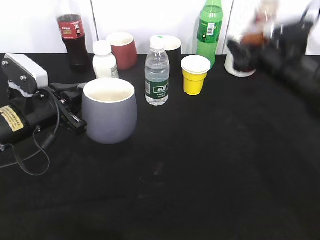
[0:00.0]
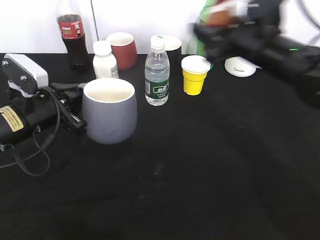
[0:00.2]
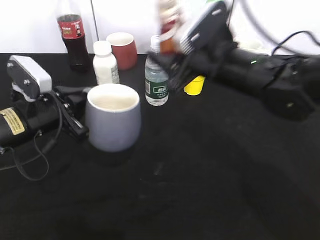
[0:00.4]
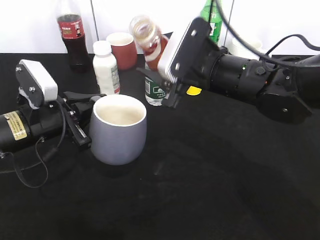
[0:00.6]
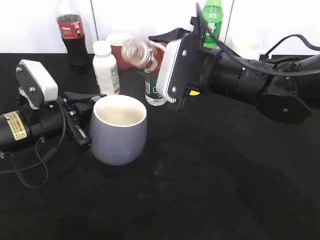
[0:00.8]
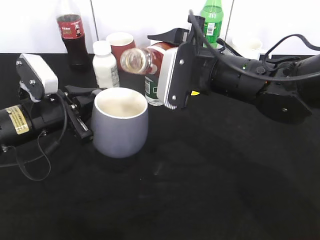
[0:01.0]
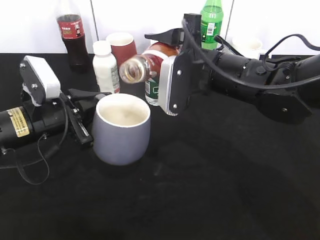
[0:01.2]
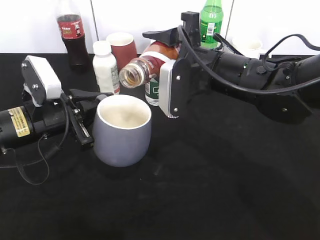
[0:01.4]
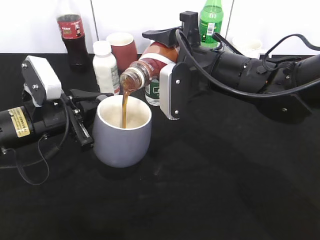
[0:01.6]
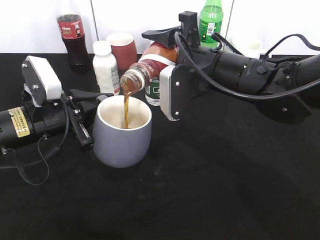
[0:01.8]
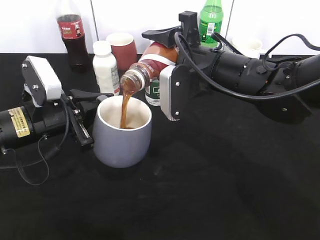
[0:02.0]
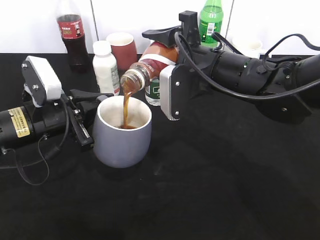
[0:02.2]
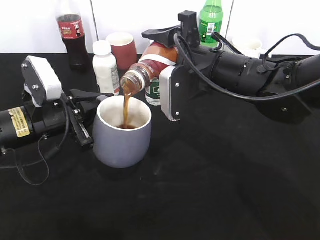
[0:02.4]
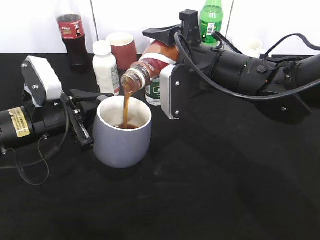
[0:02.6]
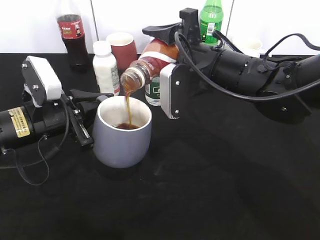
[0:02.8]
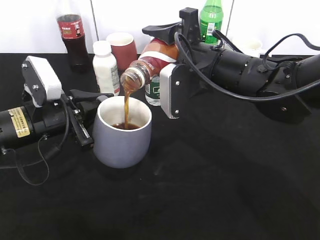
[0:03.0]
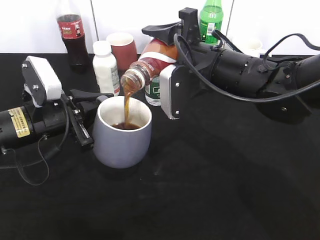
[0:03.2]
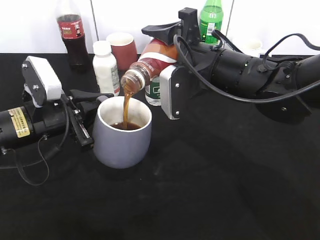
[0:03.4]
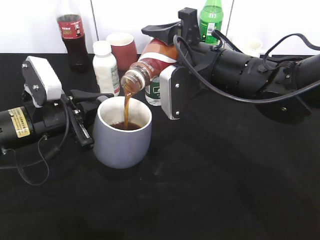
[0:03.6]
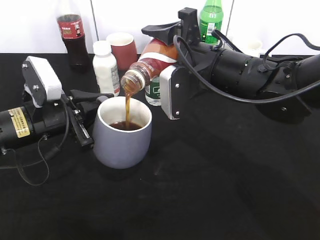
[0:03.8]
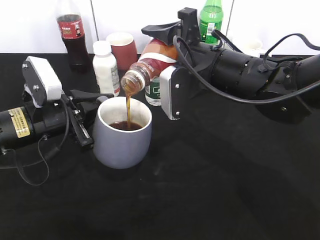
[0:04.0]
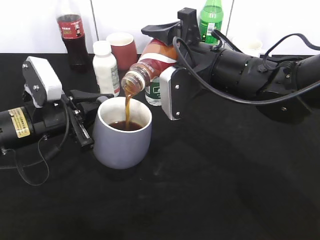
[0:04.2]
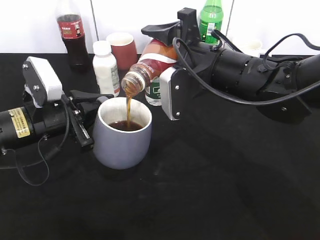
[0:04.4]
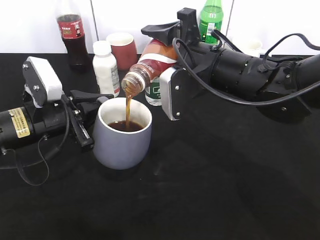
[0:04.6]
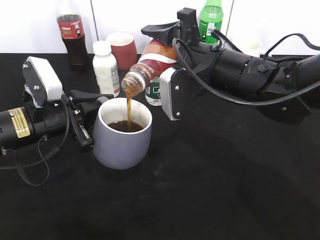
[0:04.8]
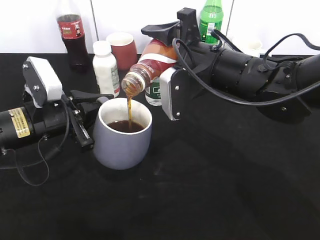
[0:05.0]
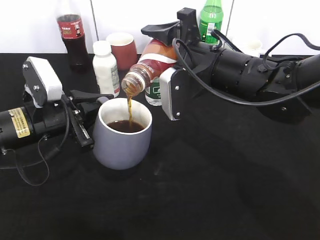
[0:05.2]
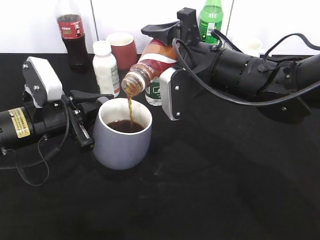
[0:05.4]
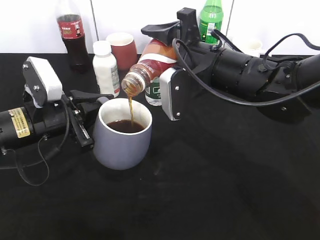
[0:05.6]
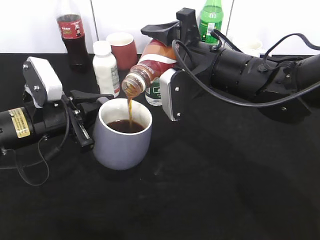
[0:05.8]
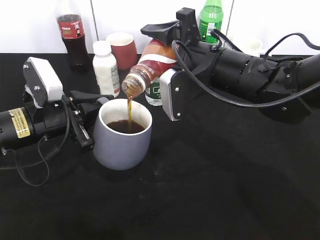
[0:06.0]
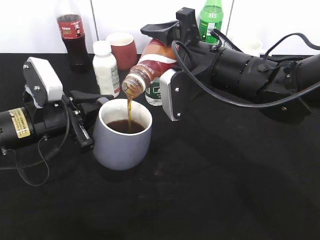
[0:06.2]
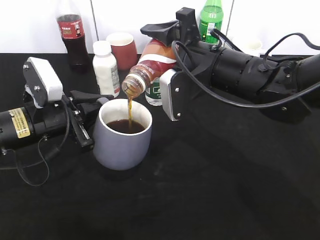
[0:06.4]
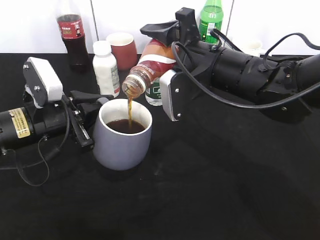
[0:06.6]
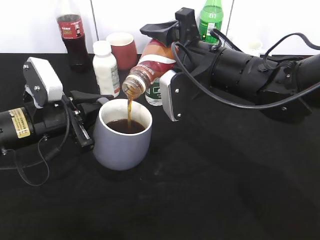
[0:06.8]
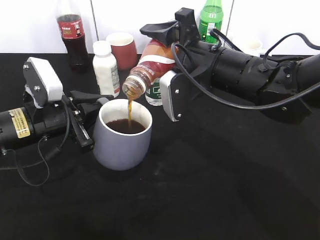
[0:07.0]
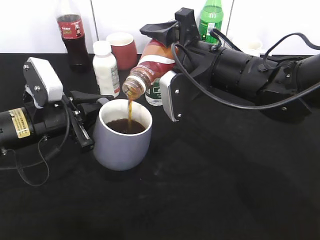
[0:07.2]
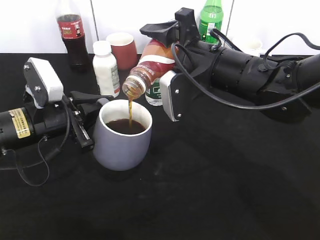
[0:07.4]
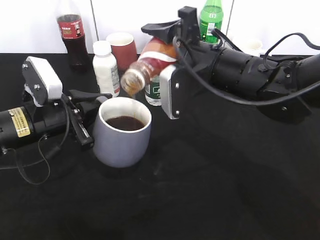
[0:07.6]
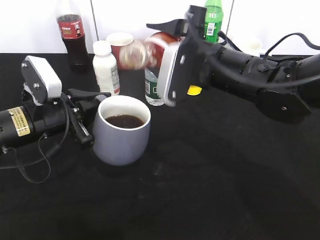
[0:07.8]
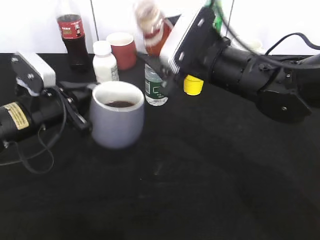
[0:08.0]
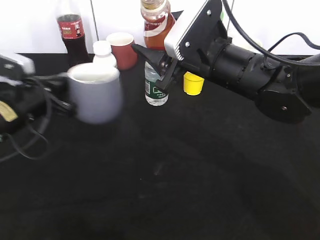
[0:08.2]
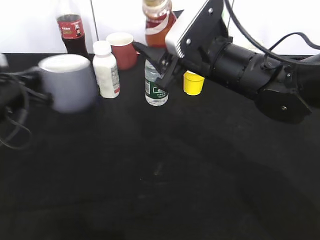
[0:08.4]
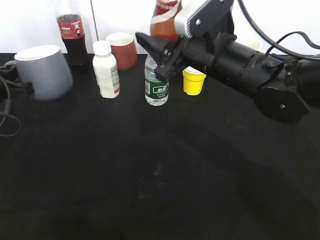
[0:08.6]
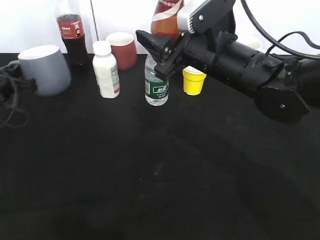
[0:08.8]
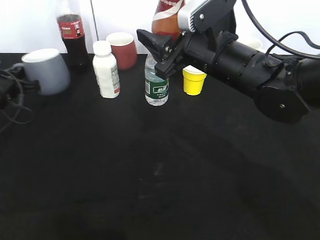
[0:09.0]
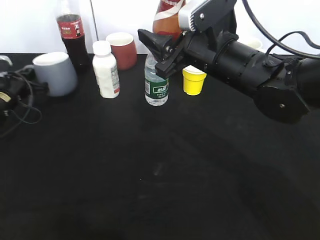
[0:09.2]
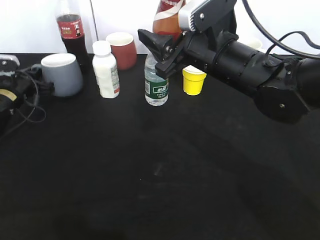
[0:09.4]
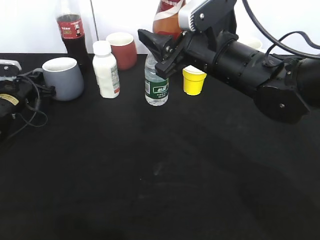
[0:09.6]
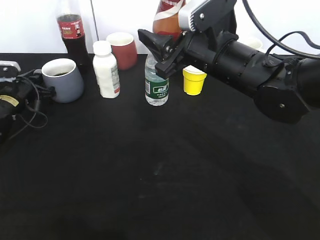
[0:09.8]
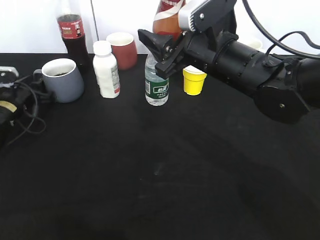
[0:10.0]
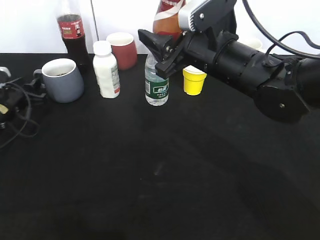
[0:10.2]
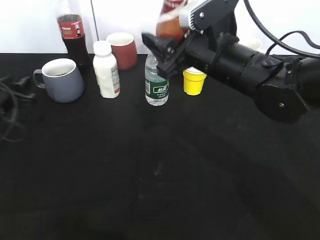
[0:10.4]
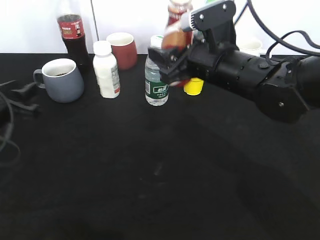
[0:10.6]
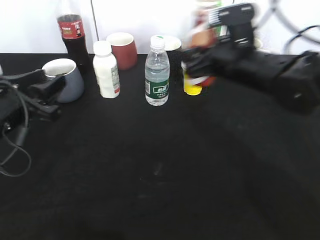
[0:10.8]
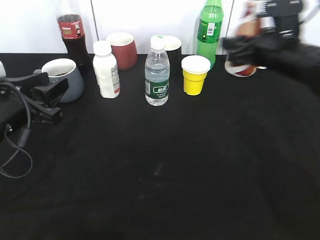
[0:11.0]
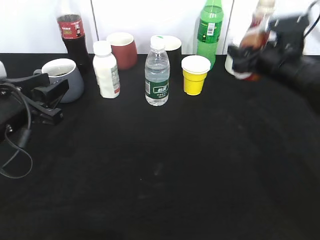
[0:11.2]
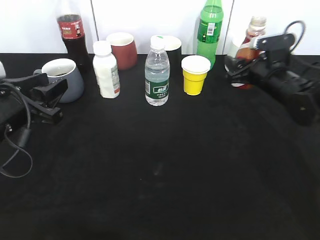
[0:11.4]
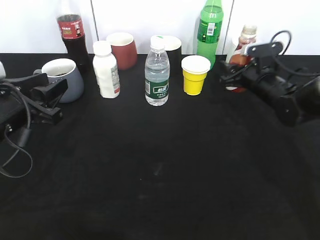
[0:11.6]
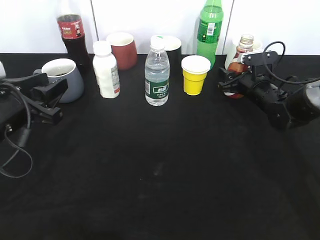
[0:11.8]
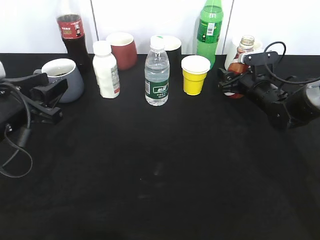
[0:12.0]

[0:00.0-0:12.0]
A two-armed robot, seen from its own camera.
Step, 0:00.0 to 0:08.0: Pour the coffee from bottle to cup with right gripper.
Step, 0:08.2 to 0:09.8: Place the grey cup on the table with left gripper.
0:00.0 to 0:01.6: The right gripper goes some 15 cm to the left and backward.
0:01.6 to 0:03.0: Both grippers stay put.
0:03.0 to 0:04.4: Both grippers stay about where they are.
0:04.4 to 0:06.0: Both grippers stay put.
0:06.0 to 0:07.6: There are only small adjustments of the grippers.
0:07.6 to 0:09.0: The left gripper goes approximately 20 cm to the left and forward.
0:09.0 to 0:10.4: The left gripper heads backward, covering approximately 5 cm, and opens its fingers.
0:10.4 to 0:12.0: The left gripper goes roughly 15 cm backward, to the right and upward, while the right gripper goes about 25 cm downward, to the right and forward, and opens up.

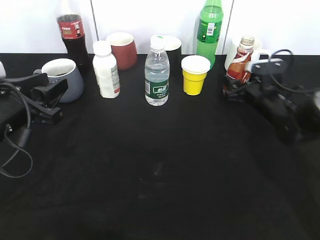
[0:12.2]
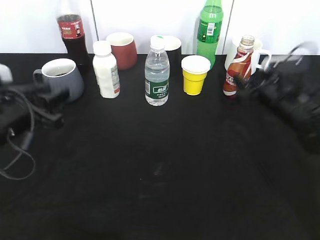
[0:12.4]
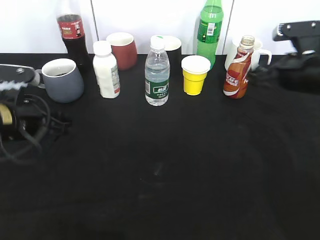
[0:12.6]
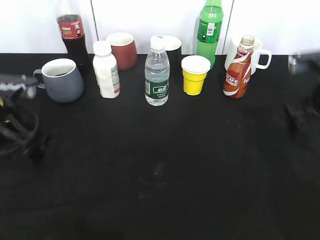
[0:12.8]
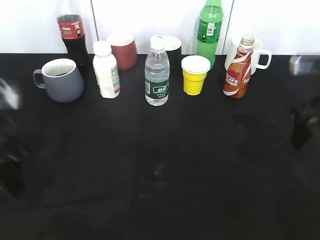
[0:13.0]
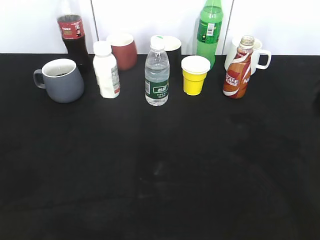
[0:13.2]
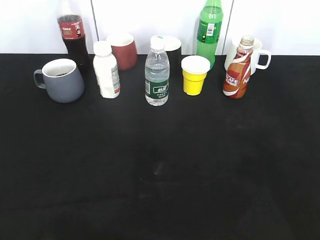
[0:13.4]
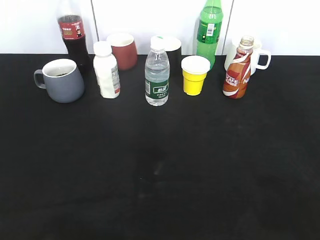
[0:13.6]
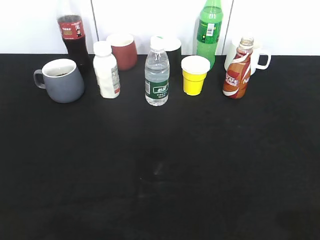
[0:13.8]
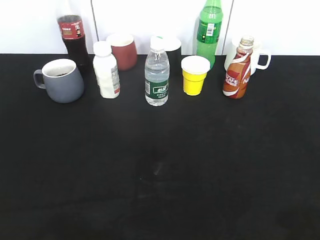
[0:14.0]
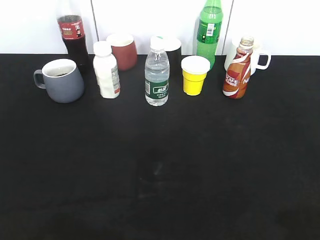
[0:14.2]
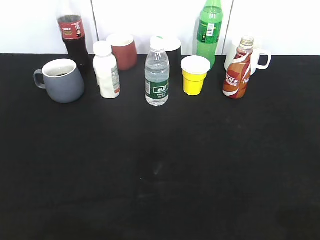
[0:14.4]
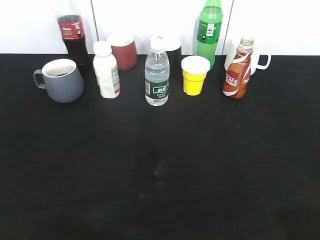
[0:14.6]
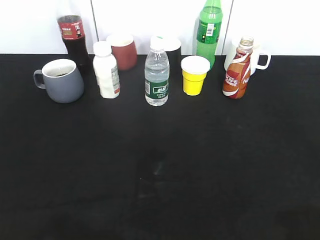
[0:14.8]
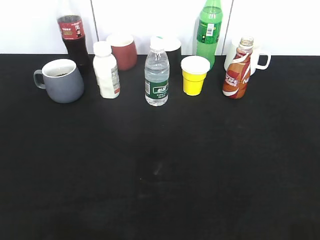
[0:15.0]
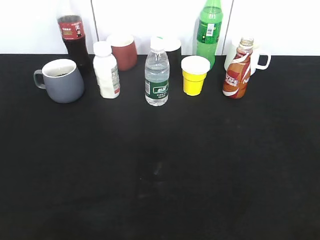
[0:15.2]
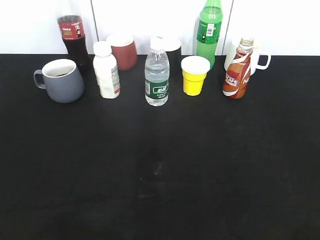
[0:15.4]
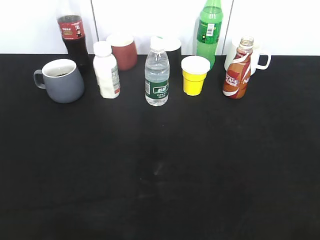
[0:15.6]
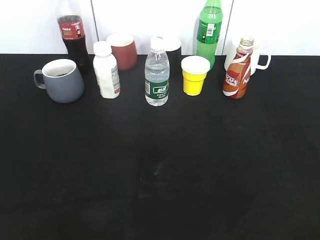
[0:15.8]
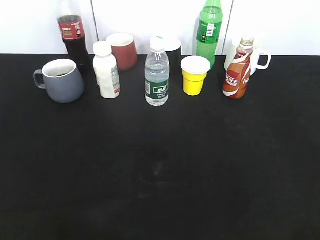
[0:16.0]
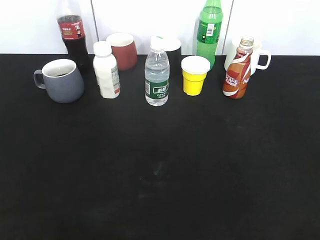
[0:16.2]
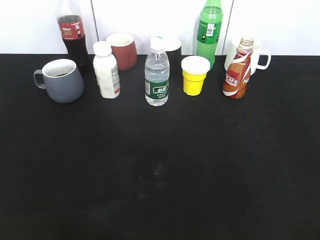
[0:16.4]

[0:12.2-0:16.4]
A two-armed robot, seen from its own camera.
0:12.2 to 0:13.6: The left gripper moves backward and upward, about 30 cm. Meanwhile the right gripper heads backward and upward, covering some 40 cm, and closes its fingers.

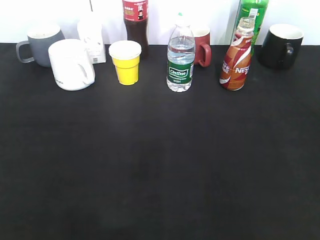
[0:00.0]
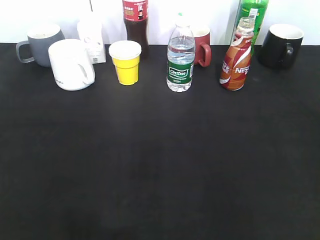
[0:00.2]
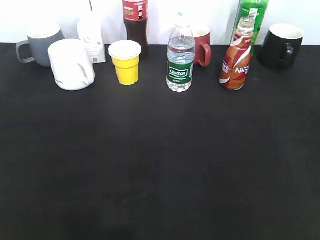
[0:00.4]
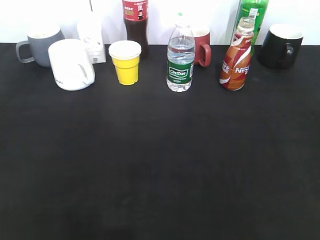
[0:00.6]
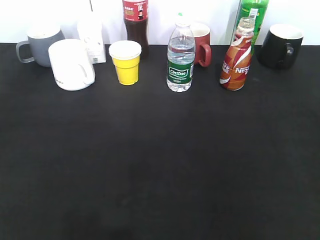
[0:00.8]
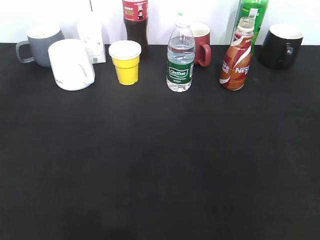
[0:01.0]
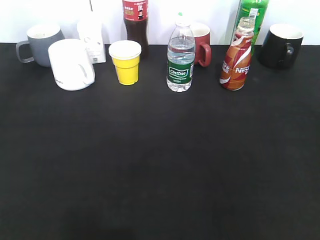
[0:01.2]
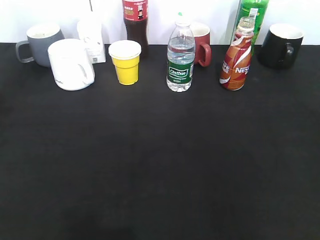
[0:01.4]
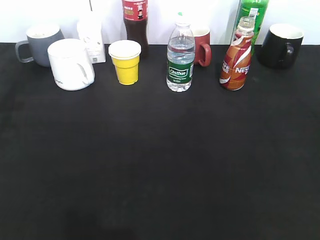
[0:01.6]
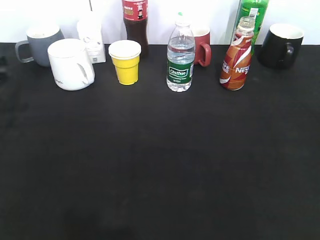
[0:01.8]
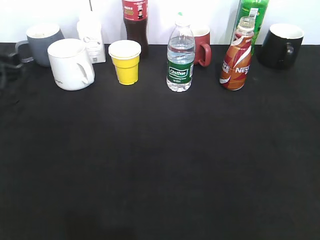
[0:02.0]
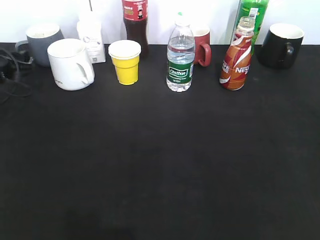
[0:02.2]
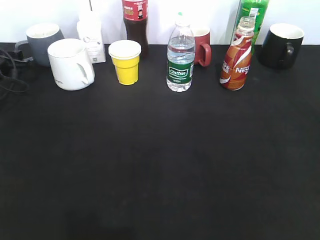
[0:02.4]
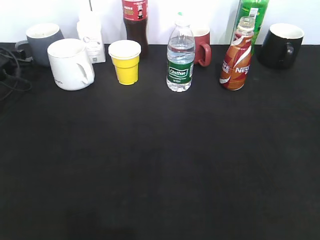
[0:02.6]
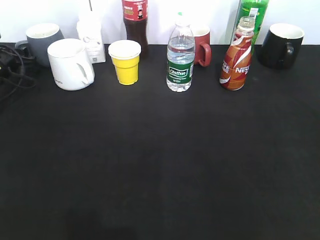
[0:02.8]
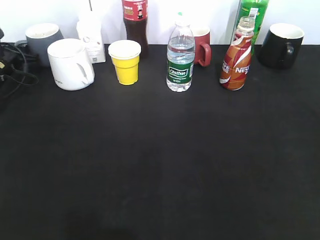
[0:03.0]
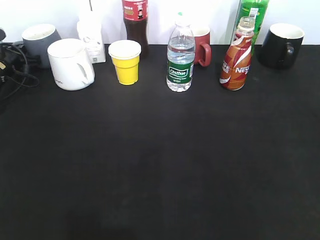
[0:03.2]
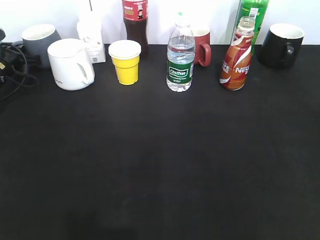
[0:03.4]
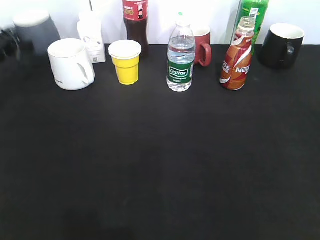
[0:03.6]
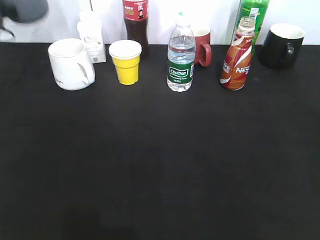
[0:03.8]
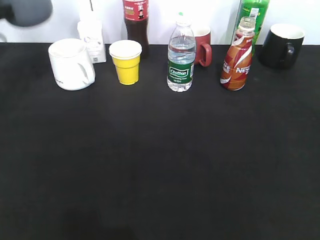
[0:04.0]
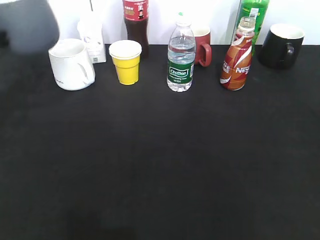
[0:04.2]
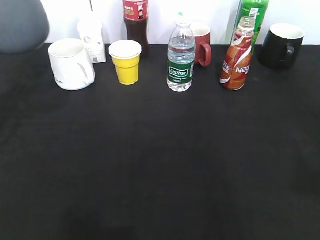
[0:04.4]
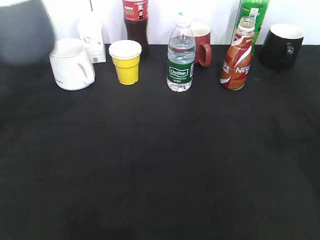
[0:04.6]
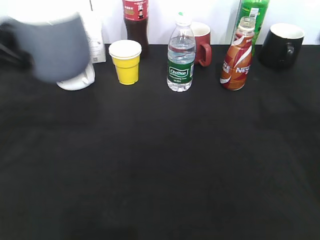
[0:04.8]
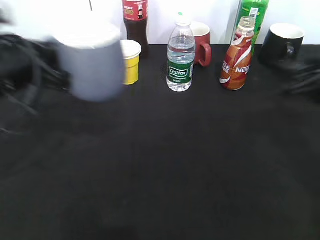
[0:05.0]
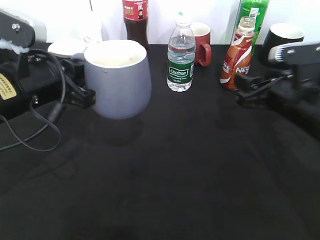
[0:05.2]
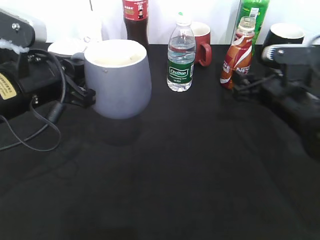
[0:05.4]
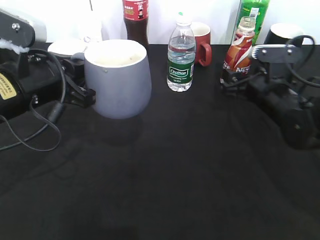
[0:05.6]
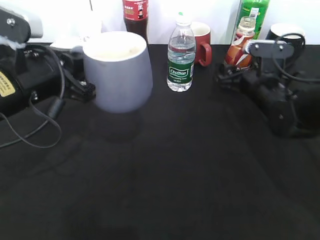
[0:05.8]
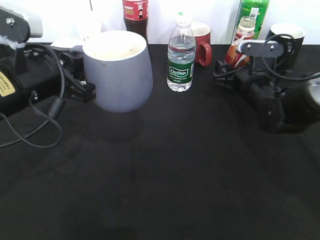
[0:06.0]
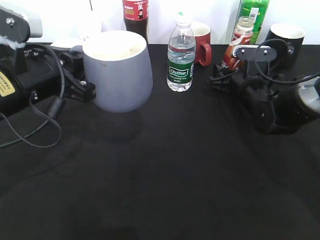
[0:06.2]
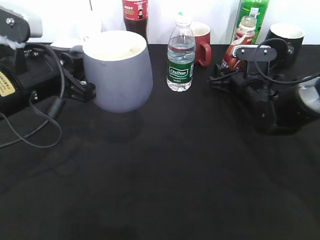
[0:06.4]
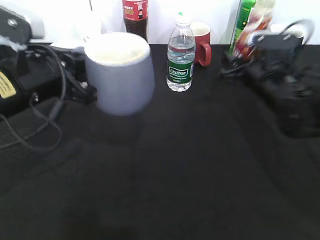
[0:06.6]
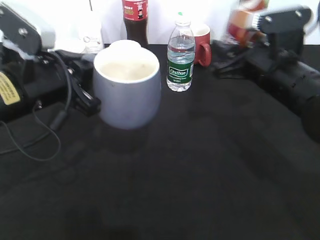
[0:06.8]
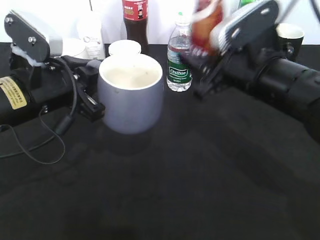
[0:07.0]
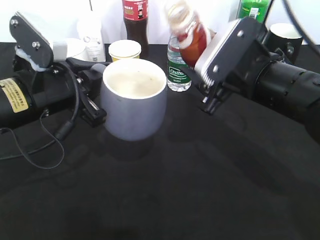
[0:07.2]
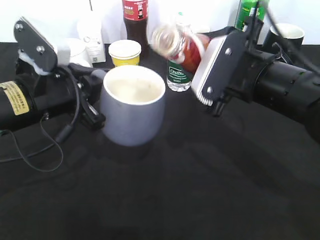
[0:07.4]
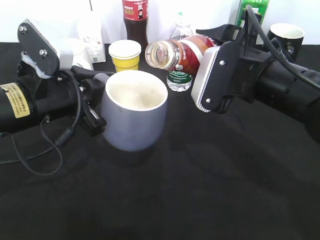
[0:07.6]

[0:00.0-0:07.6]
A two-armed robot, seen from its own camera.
Step, 0:03.4 to 0:05.0: Lift the grey cup with left gripper.
Step, 0:05.4 to 0:06.4: Grasp the bottle with coffee with right gripper.
0:00.0 to 0:01.6: The left gripper moves forward, about 30 cm.
0:01.6 to 0:03.0: The left gripper goes about 25 cm forward and downward, and closes up.
0:03.0 to 0:04.6: The right gripper is displaced forward by some 15 cm; the left gripper is displaced backward and upward by about 30 cm, and closes.
0:04.6 to 0:06.0: The right gripper goes about 30 cm forward, downward and to the left, and opens. The left gripper is displaced to the right by roughly 10 cm.
0:06.0 to 0:07.6: The right gripper moves backward, upward and to the left, roughly 20 cm, and closes its fingers.